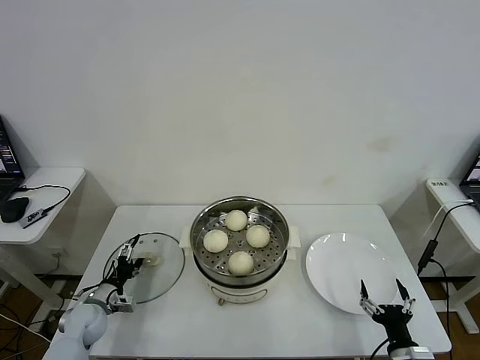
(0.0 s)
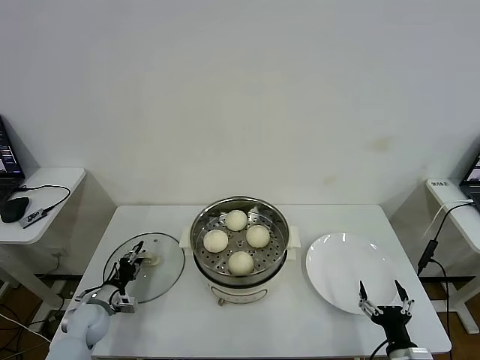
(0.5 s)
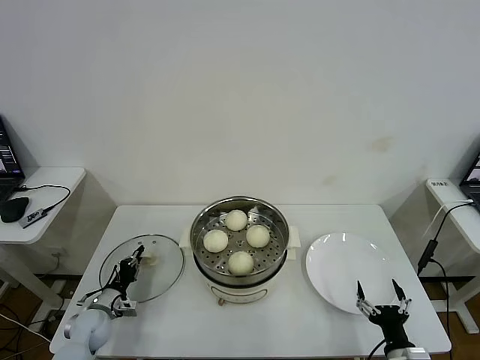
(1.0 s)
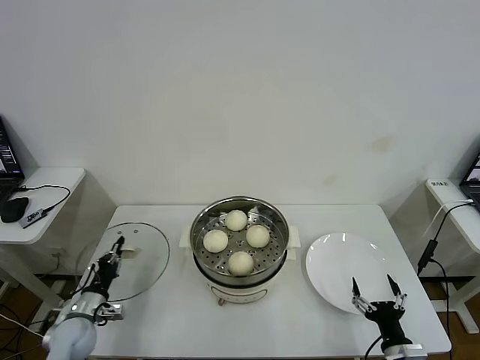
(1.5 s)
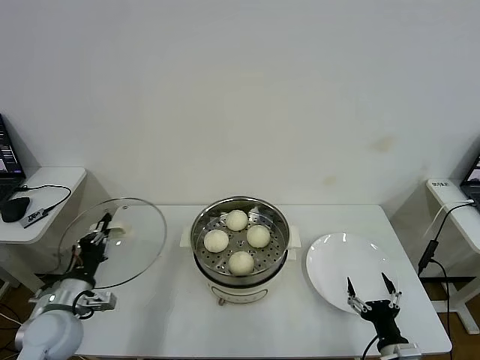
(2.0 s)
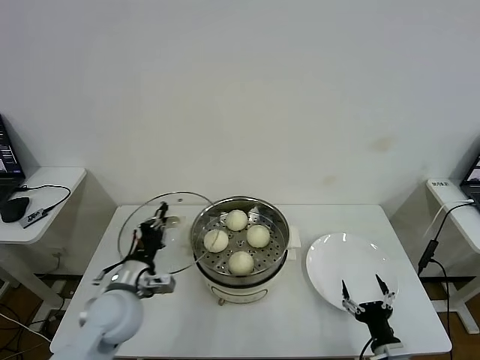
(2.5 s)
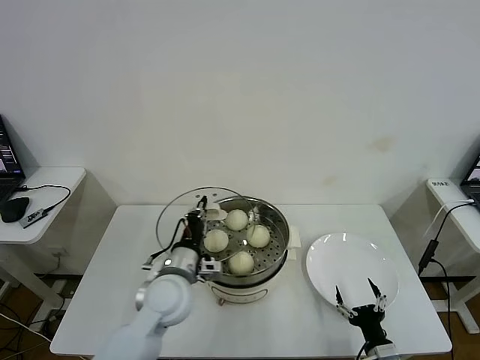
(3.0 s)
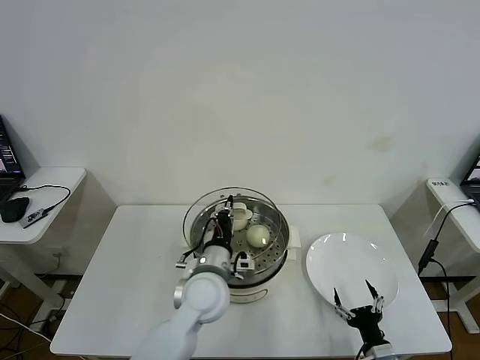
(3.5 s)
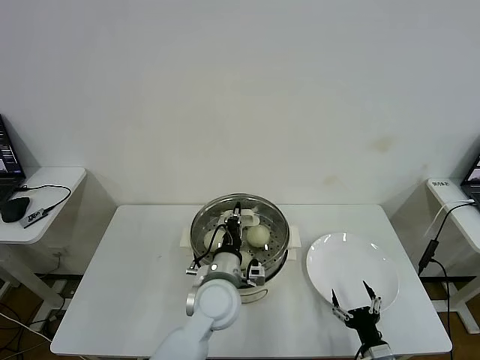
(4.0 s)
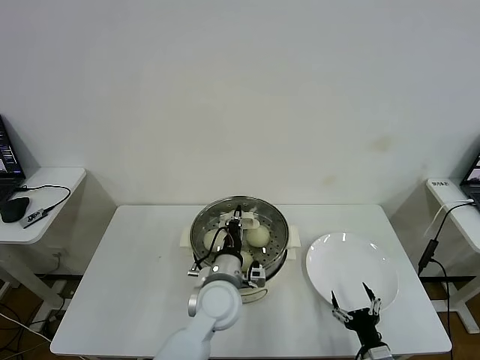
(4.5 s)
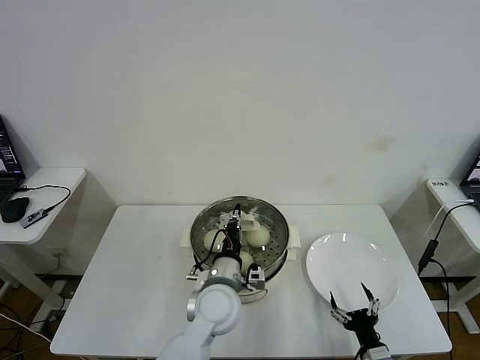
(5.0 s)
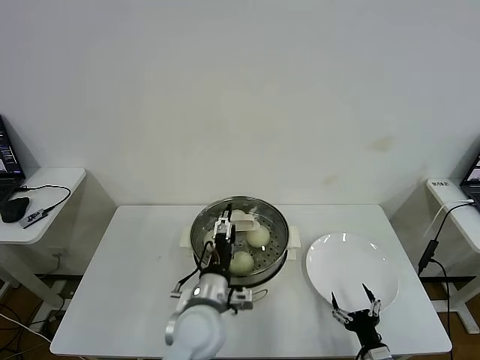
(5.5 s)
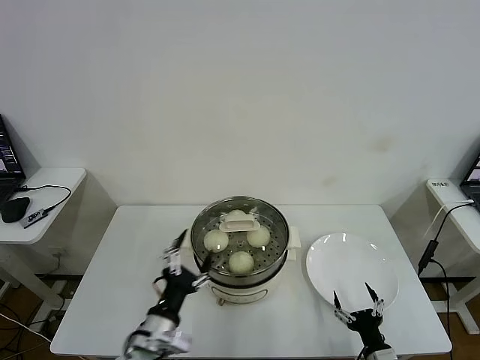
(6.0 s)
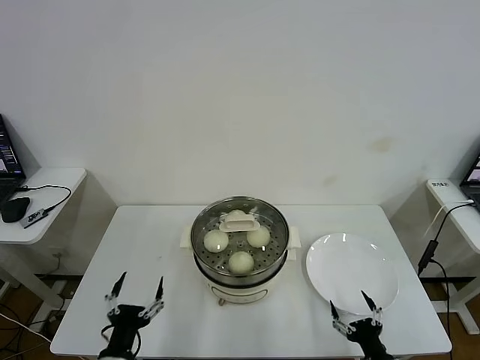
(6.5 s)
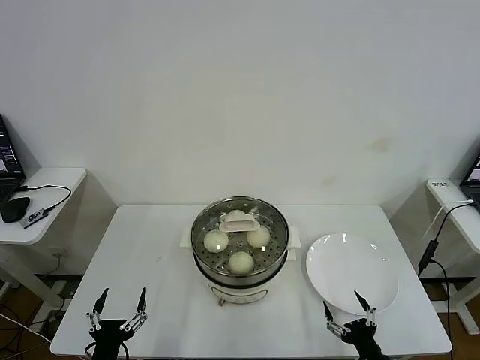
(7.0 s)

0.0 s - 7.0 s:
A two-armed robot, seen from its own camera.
Task of the whole recording: take steamed baozi put them in steamer then cover it.
Step, 1.0 s - 5.0 s: Place the pot lid on the steamer with left gripper.
0.0 s - 2.0 s: The left gripper shifts some 15 cm upward and backward, and closes.
2.0 s - 3.5 s: The left gripper heads to the right, covering approximately 30 cm.
3.5 s - 5.0 s: There are only small adjustments of the grippers.
5.0 s - 7.0 s: The left gripper moves to the left and backward, some 30 cm, and opens.
